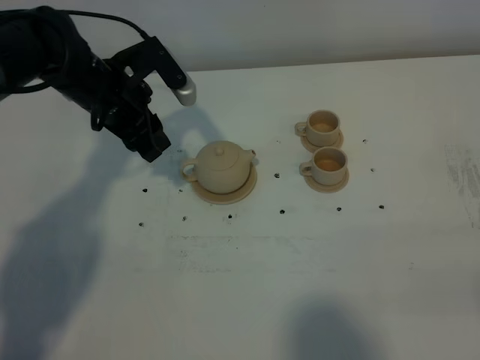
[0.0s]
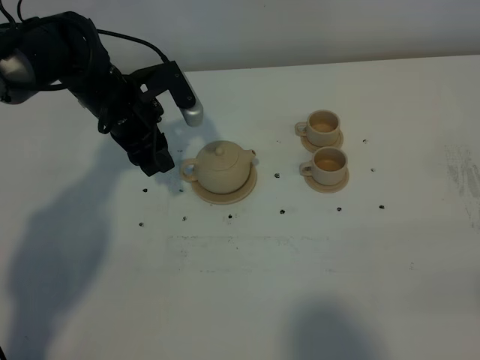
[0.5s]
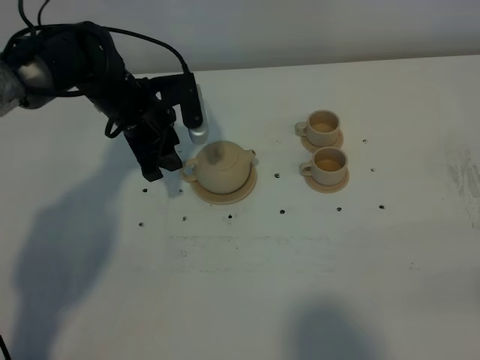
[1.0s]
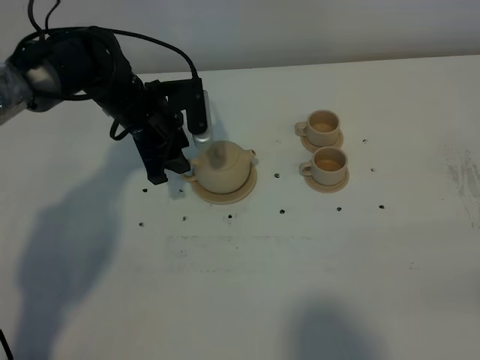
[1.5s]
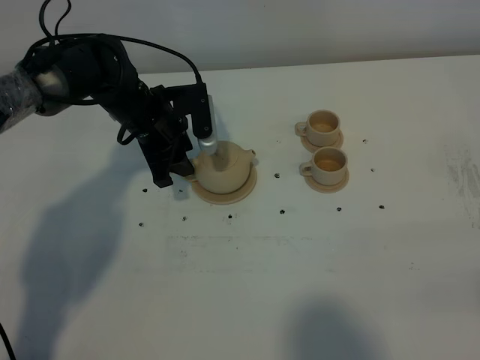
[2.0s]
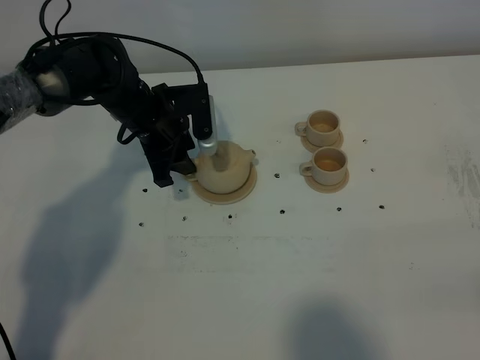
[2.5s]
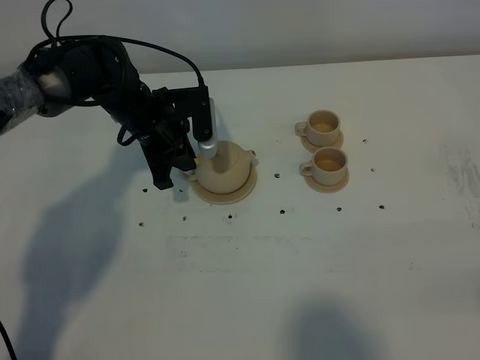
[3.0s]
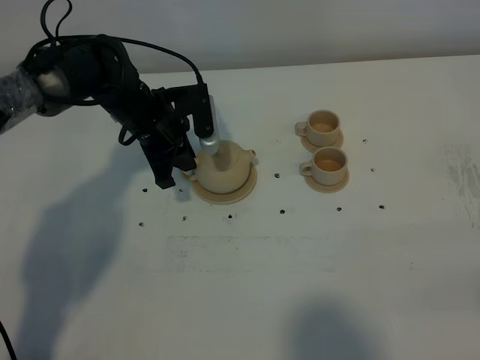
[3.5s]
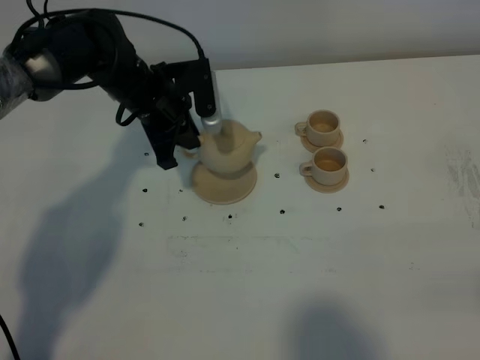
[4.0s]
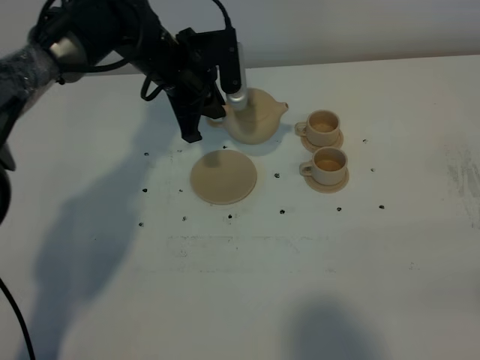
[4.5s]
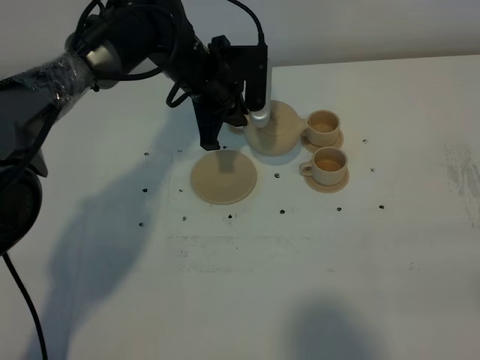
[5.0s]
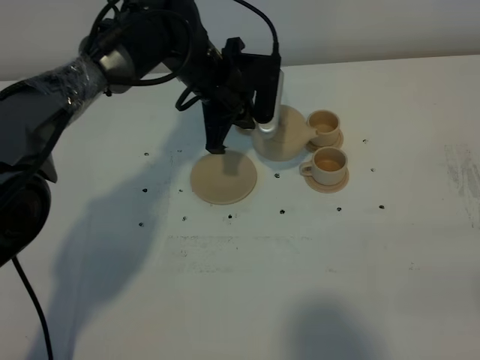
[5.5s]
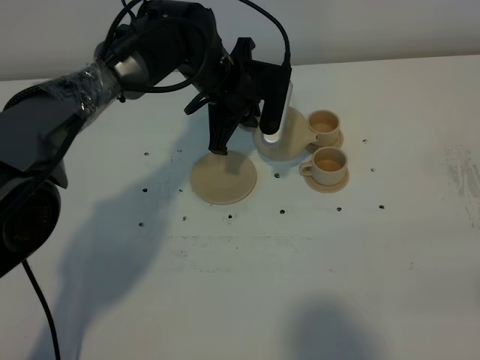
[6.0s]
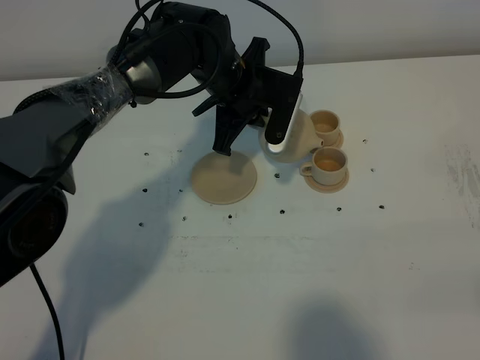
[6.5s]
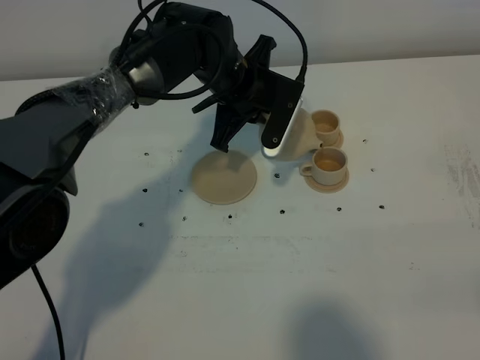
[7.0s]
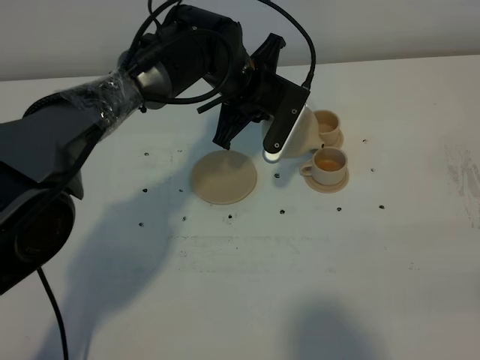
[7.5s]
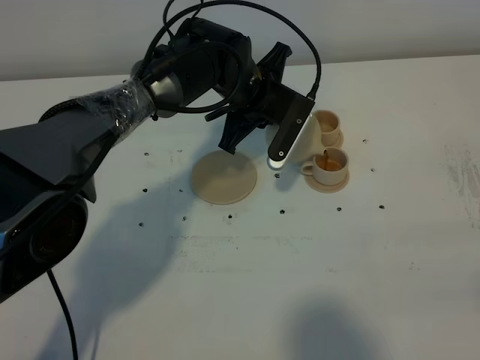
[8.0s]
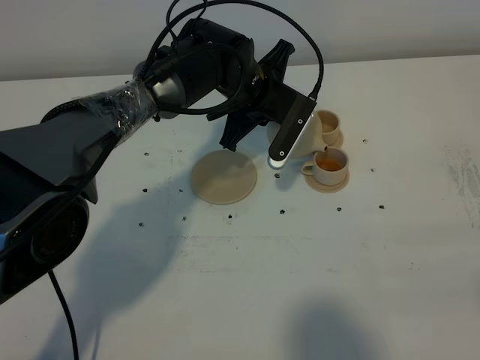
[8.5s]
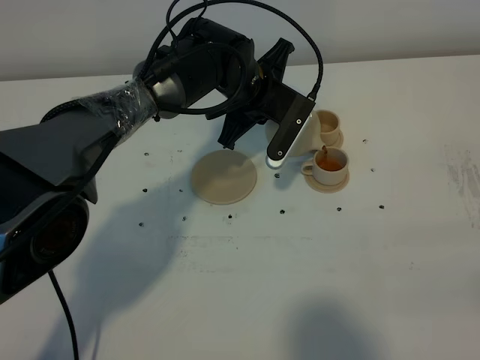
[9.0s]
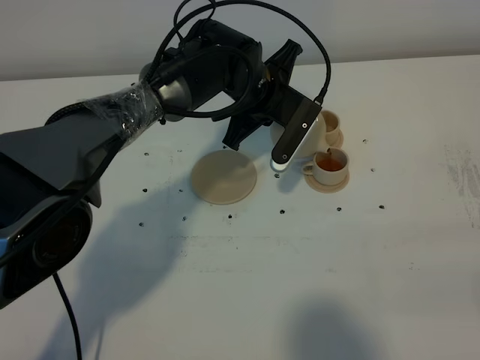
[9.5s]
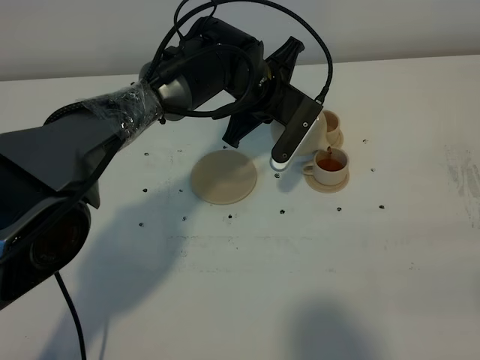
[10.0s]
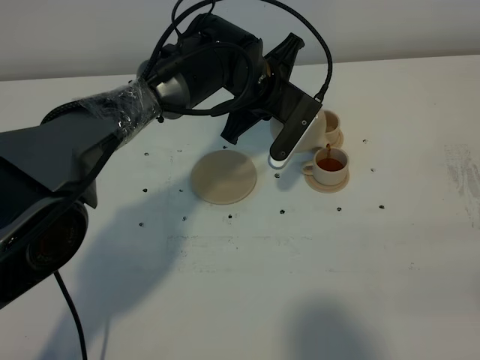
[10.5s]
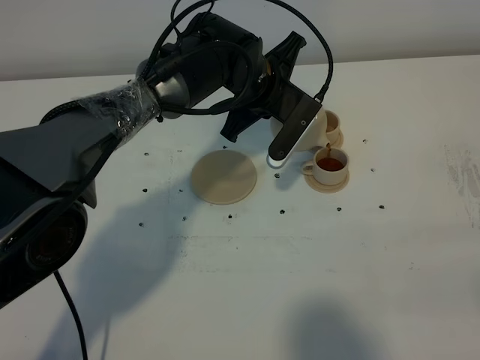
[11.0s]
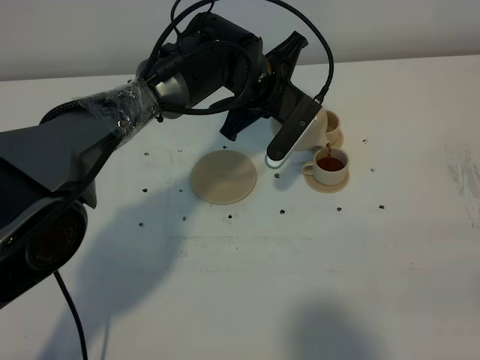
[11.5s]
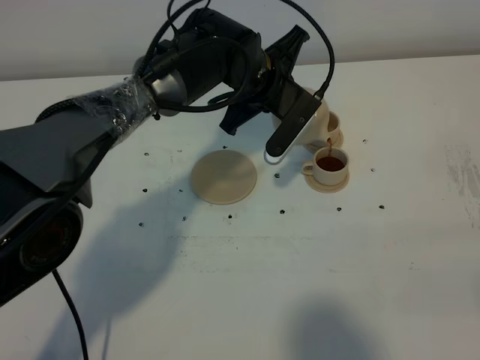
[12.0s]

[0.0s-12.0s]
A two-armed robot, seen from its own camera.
Task of the whole recording: grasp the brown teapot and pour the tea into the two brown teacups one by one, put the brown teapot back in its original place.
Step, 0.0s to 3.0s: Pick up the teapot with the left gripper.
0.0s to 2.0s: The left gripper moves downward, about 5 cm.
2.0s to 4.0s: The left gripper closes.
4.0s to 6.0s: The left gripper goes approximately 10 cm to the right.
8.0s to 12.0s: The grippers stay close to where they were, moving slightly.

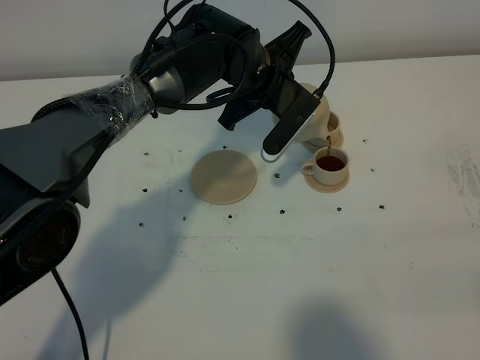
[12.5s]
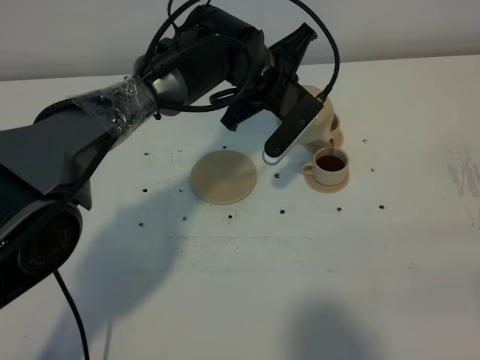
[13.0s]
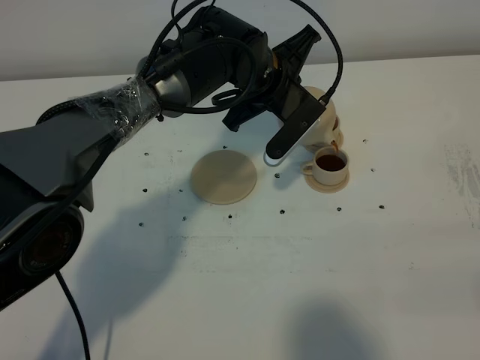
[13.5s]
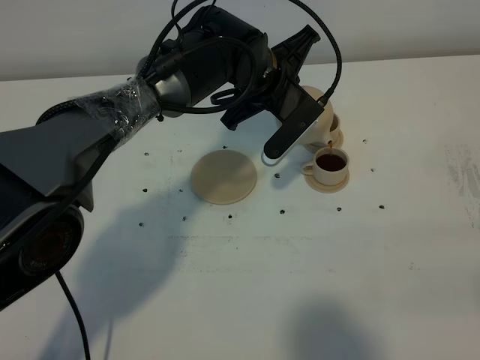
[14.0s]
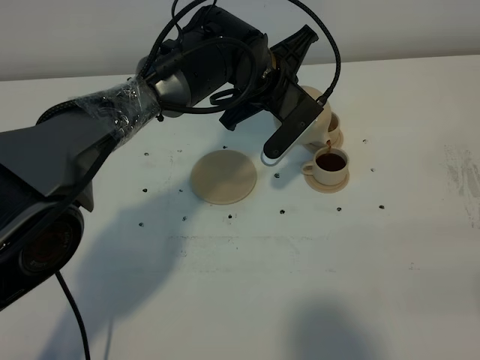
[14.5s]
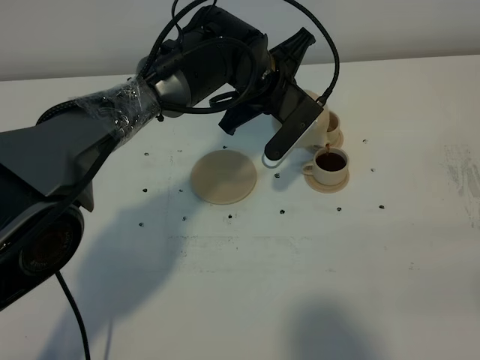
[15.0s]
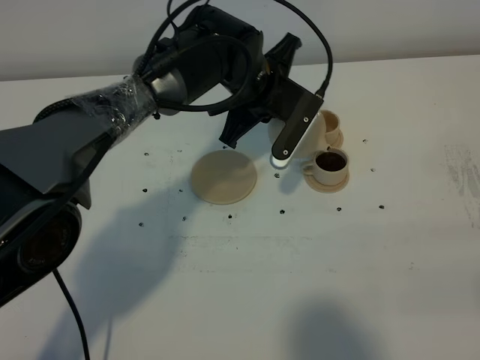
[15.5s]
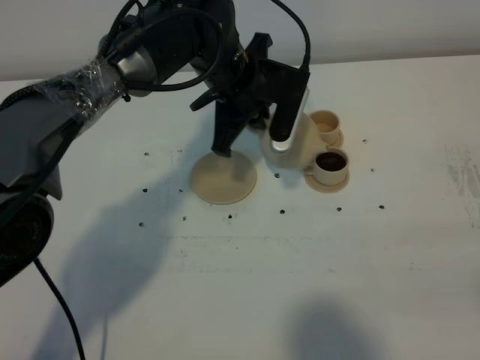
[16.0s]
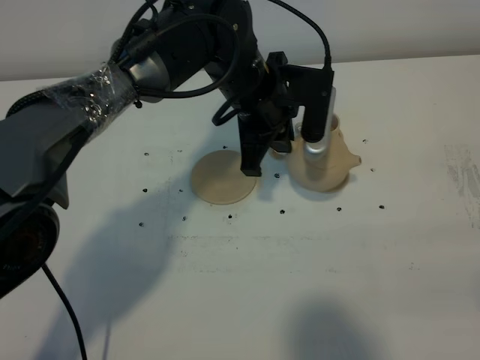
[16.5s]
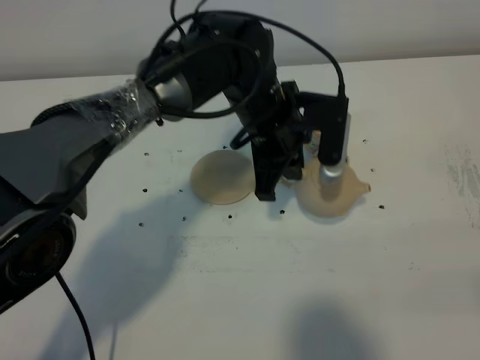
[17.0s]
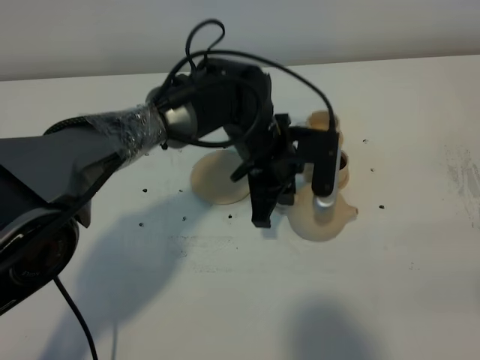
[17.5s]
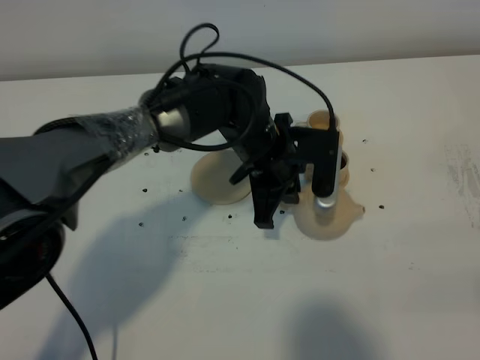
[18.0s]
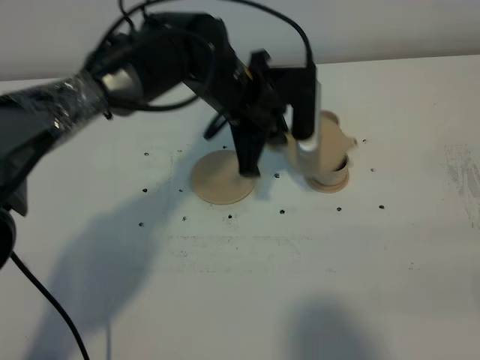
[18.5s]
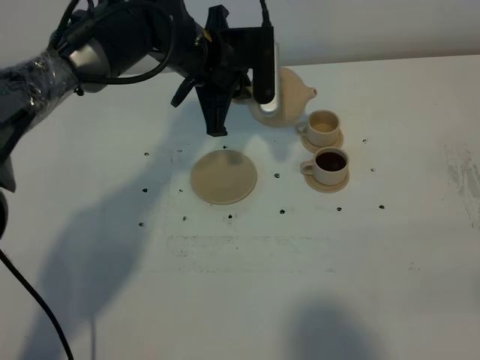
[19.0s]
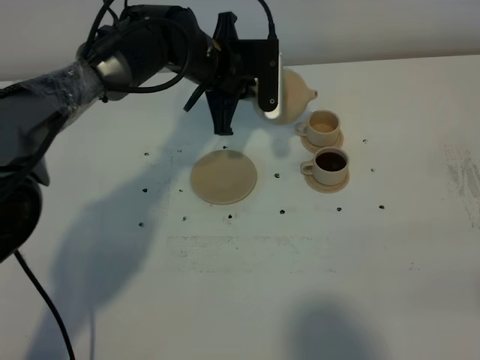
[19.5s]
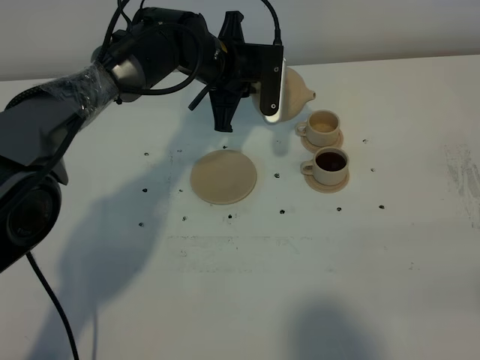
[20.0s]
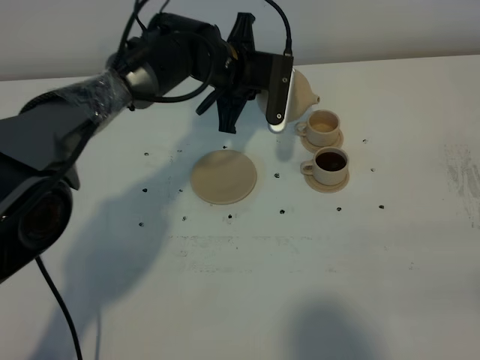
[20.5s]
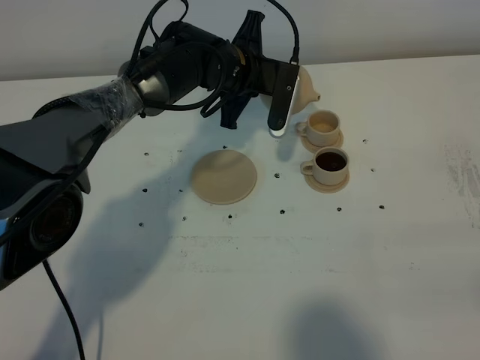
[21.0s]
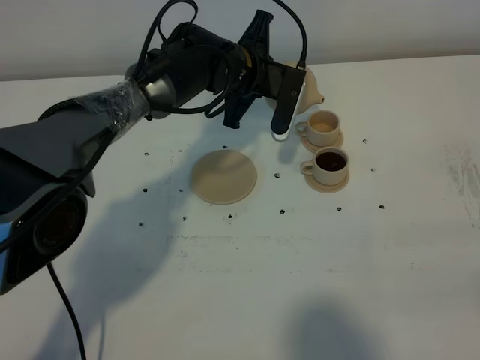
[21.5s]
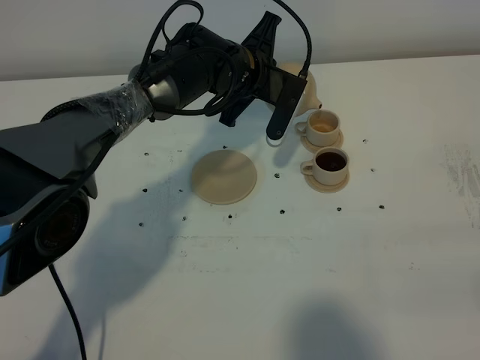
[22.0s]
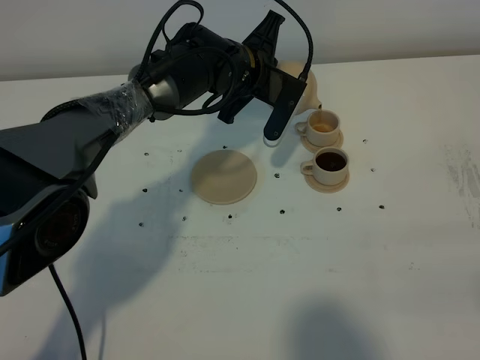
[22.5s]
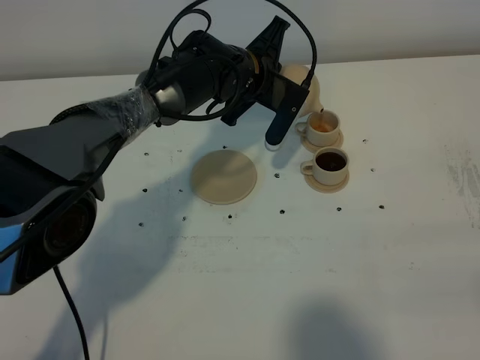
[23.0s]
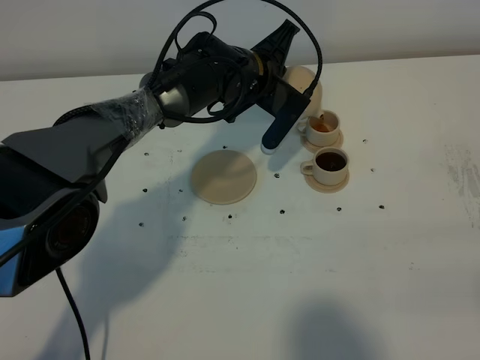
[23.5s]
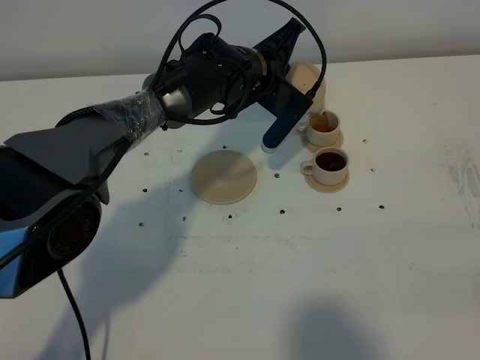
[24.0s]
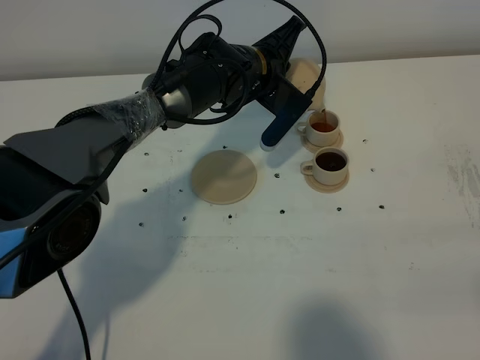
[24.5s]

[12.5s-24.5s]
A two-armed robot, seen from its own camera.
Task of the whole recording: grasp the brown teapot and pour the tea into the two brown teacups one by one, put the brown teapot back in its original place.
Step, 12.5s to 15.0s: Pour tea into the teacup with the left gripper.
12.5s to 14.5s: The two grippers keep their place.
16.5s to 18.5s: The left gripper goes downward and returns, some 10 cm each way.
18.5s to 20.5s: The left gripper shifts approximately 10 cm forward.
22.5s to 24.5s: There are only small adjustments of the grippers.

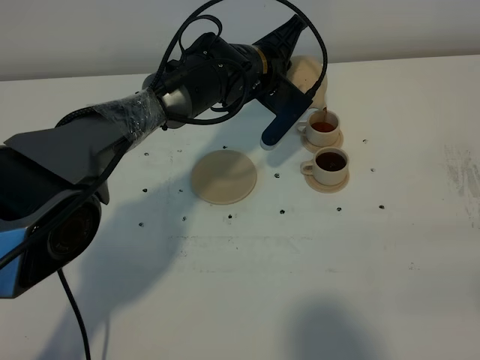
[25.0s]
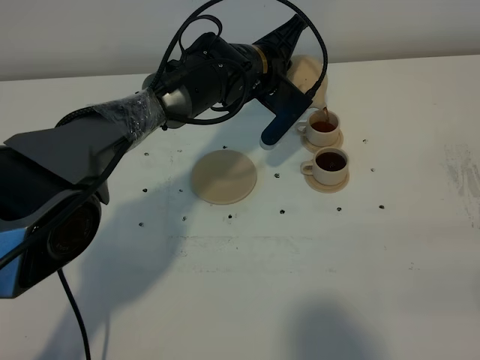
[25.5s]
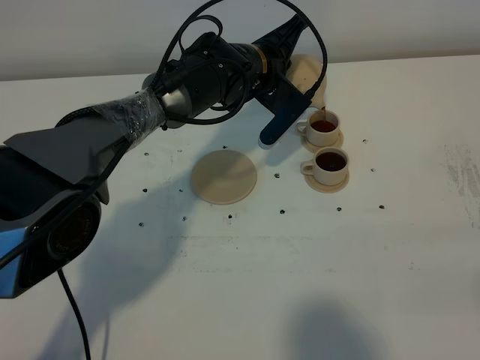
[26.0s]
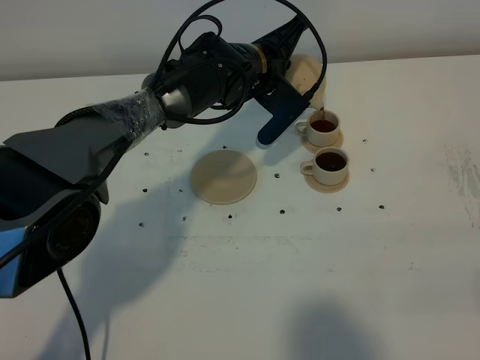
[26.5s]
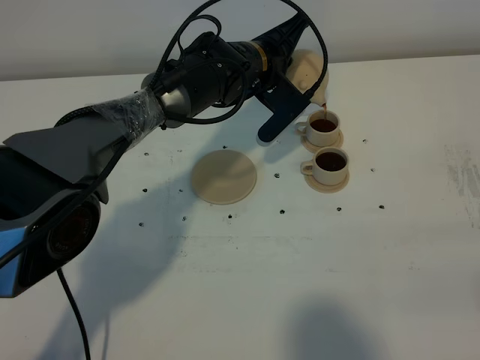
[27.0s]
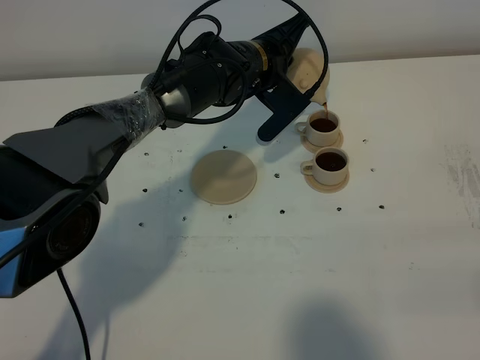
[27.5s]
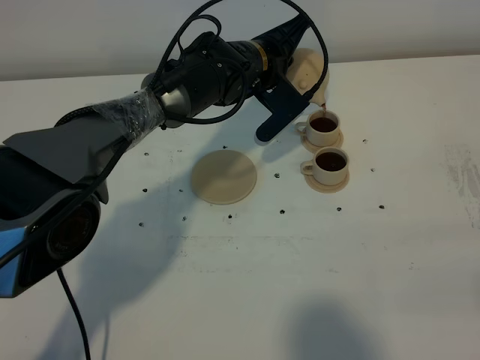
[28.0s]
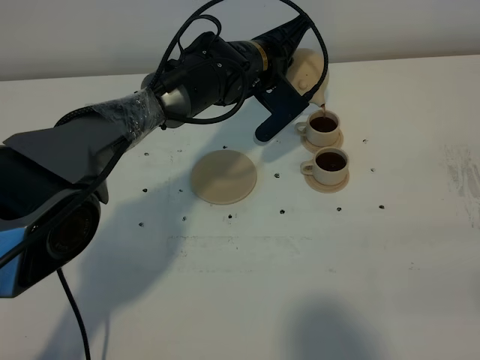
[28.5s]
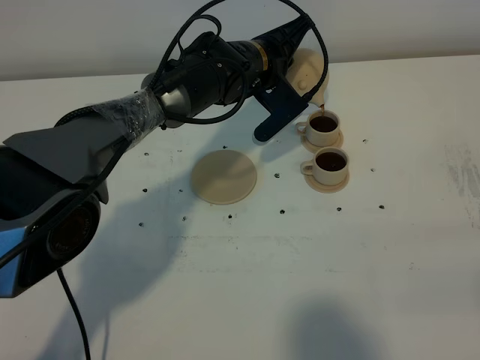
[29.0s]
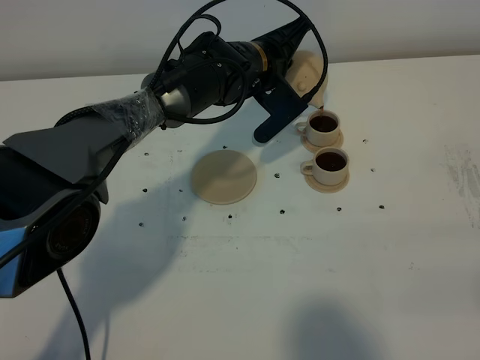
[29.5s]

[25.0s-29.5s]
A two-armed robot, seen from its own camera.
Task of the whole recording: grasp the brown teapot and pour the tea into the two brown teacups one by one, put the brown teapot back in its original place.
25.0s to 27.0s: The grippers move only a little.
27.0s to 29.5s: Neither gripper changes place.
